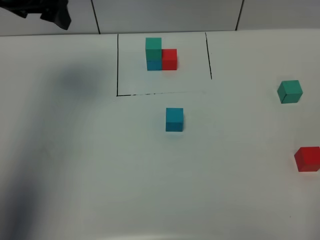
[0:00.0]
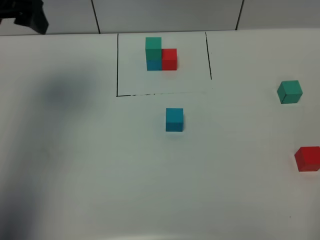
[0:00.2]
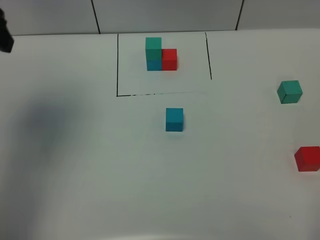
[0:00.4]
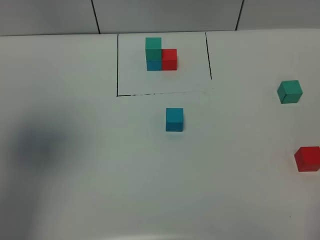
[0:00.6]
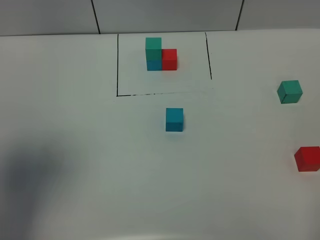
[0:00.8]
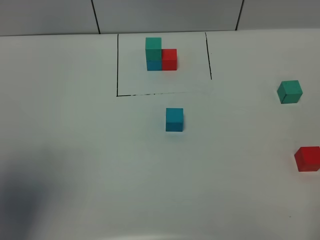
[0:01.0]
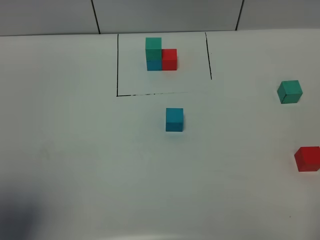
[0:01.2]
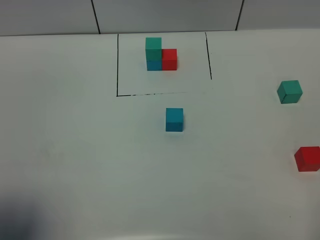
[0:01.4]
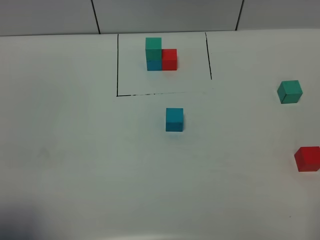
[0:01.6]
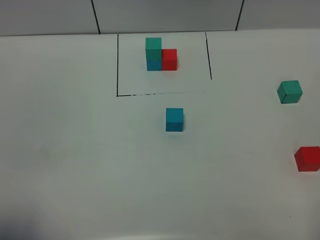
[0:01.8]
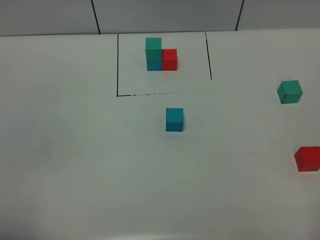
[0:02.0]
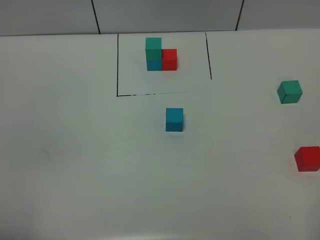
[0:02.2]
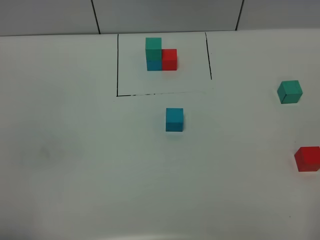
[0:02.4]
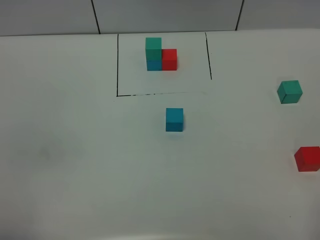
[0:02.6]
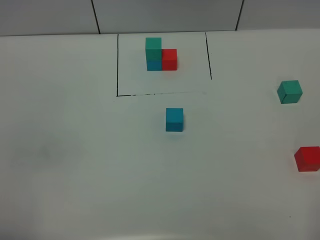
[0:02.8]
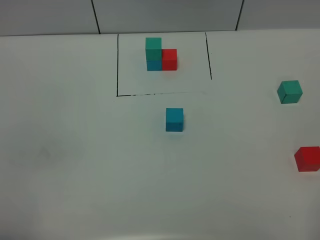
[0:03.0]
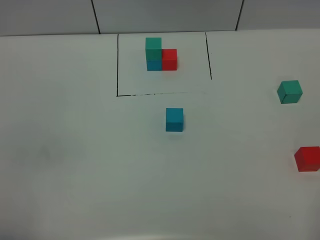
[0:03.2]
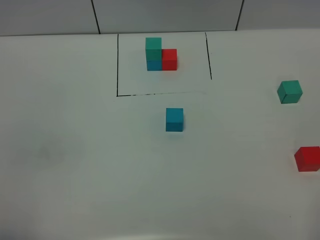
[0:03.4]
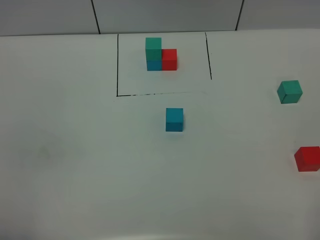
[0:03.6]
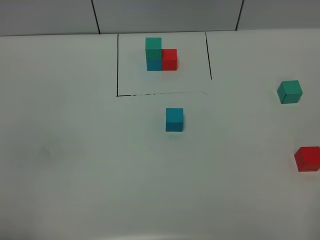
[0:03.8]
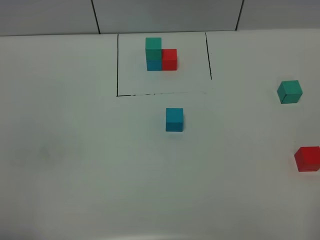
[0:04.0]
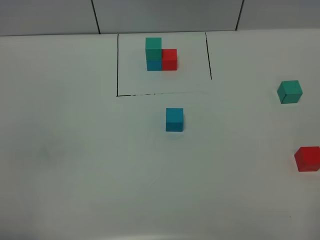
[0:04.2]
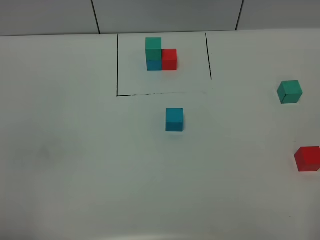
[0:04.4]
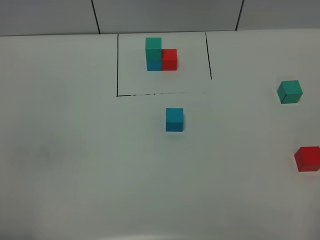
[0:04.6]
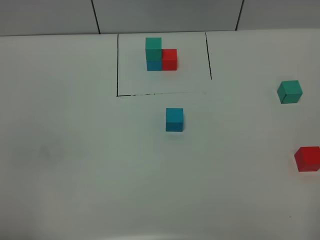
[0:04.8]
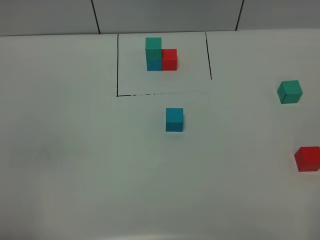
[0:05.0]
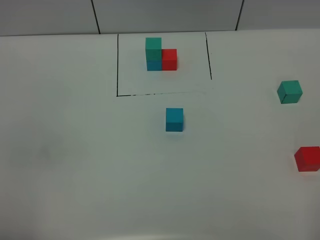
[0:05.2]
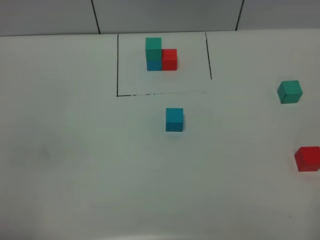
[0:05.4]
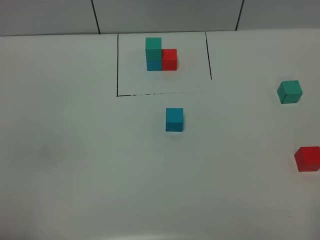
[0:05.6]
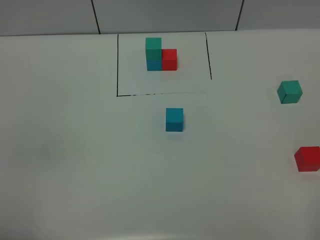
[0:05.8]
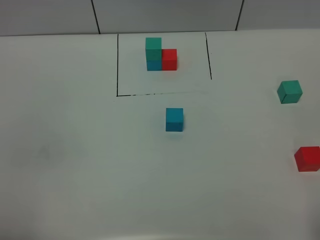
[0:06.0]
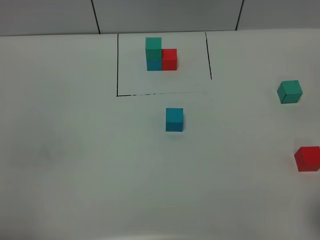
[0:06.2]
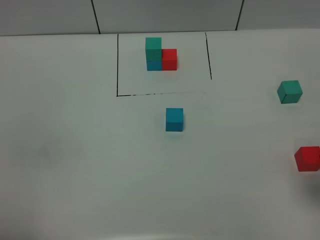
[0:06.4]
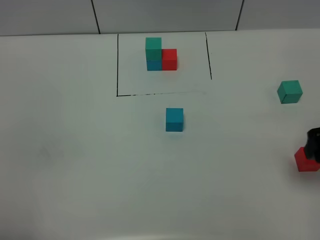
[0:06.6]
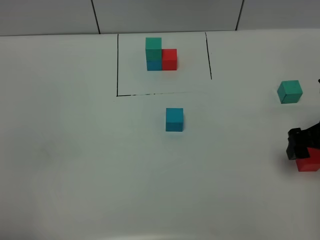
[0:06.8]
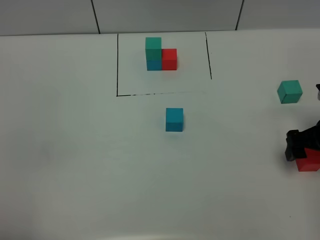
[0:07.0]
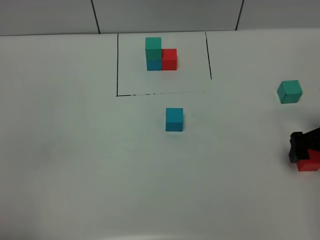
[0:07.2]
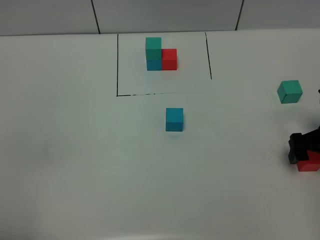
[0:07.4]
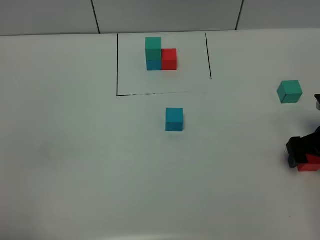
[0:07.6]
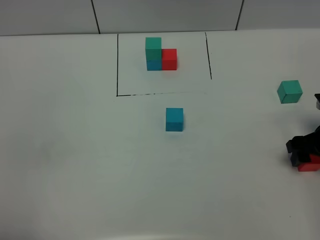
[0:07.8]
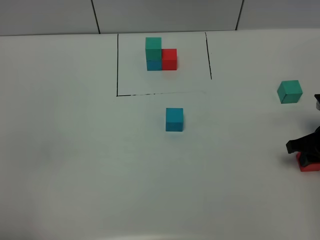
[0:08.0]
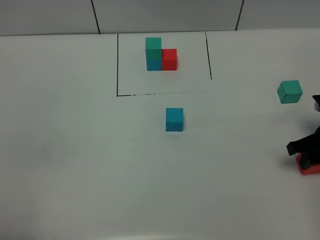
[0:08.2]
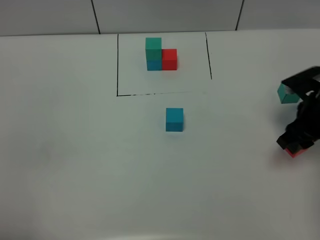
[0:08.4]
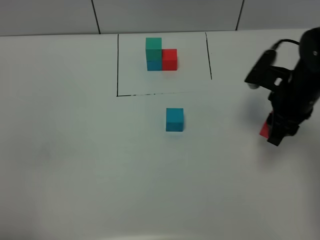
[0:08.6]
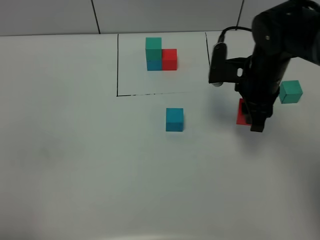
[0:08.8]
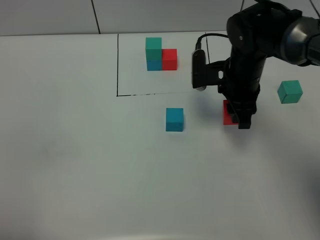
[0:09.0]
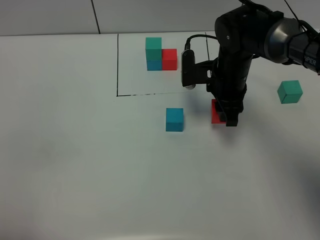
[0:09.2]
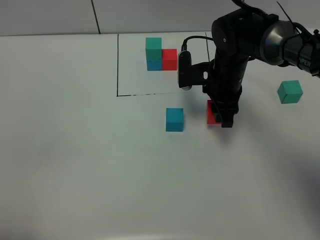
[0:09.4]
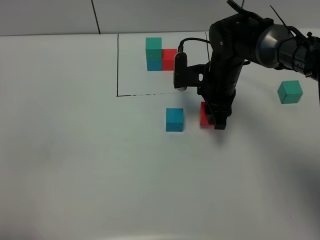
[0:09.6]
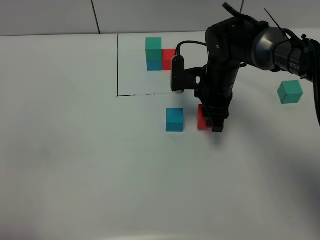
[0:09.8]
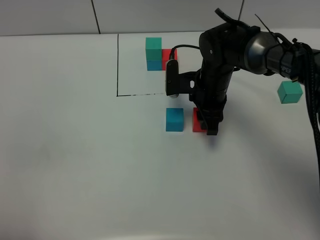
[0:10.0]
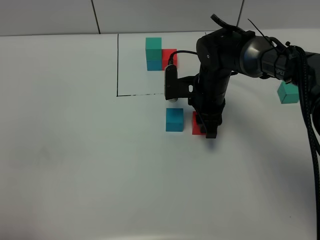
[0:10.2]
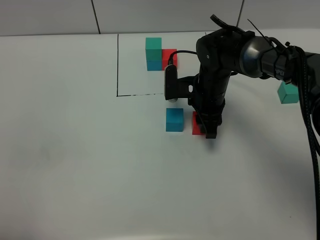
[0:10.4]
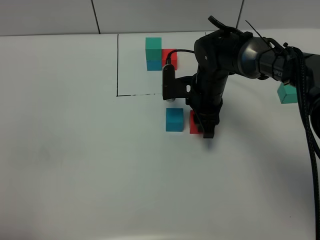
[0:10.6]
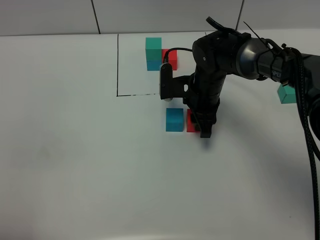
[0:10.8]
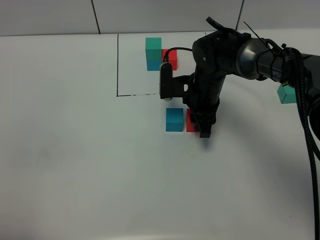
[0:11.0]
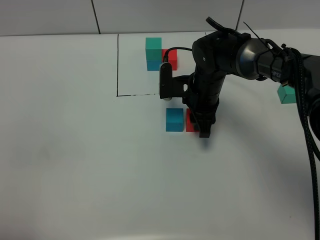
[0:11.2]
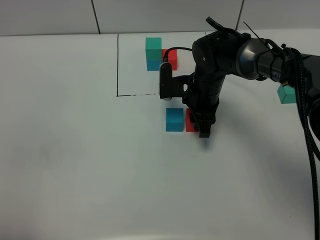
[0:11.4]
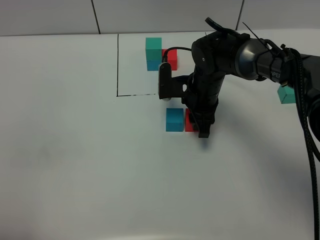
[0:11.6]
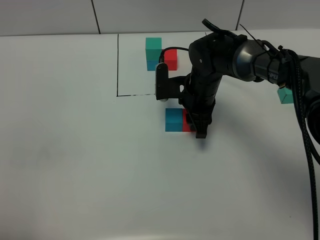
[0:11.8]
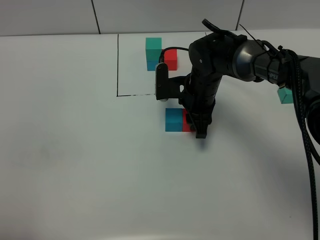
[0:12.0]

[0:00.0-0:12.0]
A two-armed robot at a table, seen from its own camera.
Task of the whole recording: According to the building block template in front, assemble the scattered blocks together.
Step, 0:00.0 to 0:12.0: Put the red build block on the right of the blue build block.
0:00.0 to 0:01.6: The left gripper goes roughly 35 cm backward.
0:01.6 to 0:03.0: The left gripper is displaced downward by some 5 cm.
0:03.0 to 0:04.4: Both grippers stay about where they are.
0:06.0 to 0:07.6: The right gripper is displaced forward and downward by approximately 30 cm.
0:07.6 to 0:09.0: The right gripper is displaced to the left and forward by some 20 cm, and closes.
0:09.0 to 0:10.4: The right gripper moves downward, approximately 5 cm.
0:10.4 to 0:12.0: The grippers make only small movements.

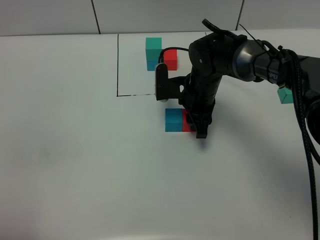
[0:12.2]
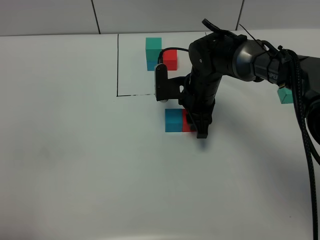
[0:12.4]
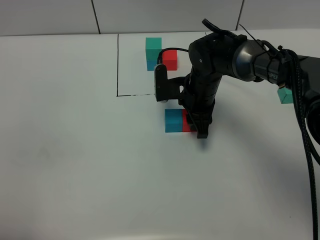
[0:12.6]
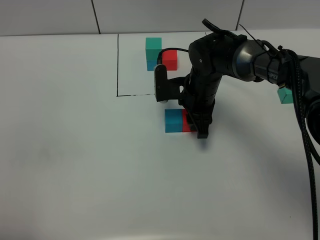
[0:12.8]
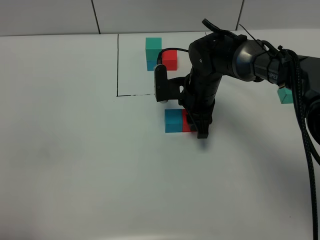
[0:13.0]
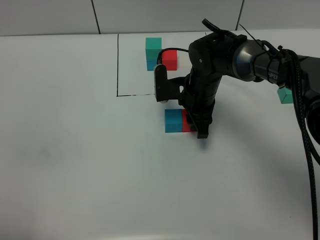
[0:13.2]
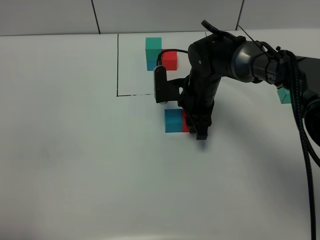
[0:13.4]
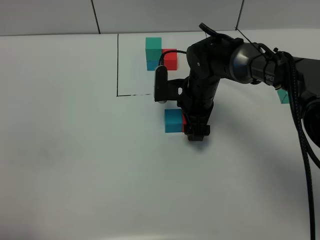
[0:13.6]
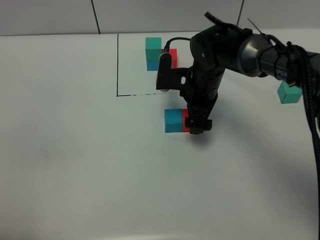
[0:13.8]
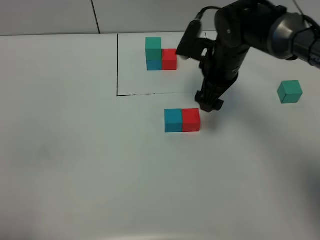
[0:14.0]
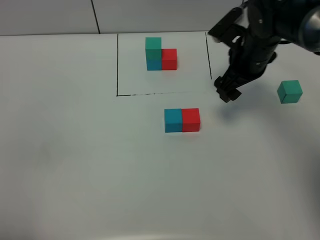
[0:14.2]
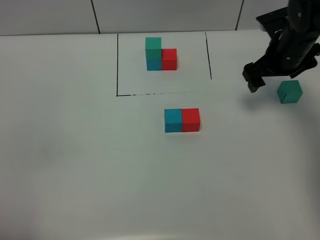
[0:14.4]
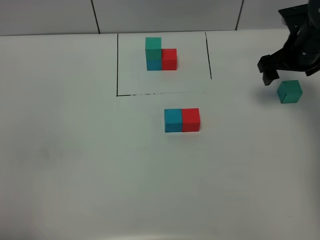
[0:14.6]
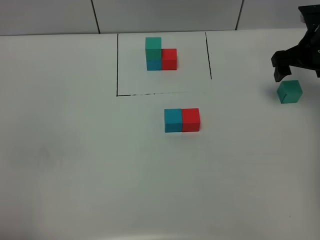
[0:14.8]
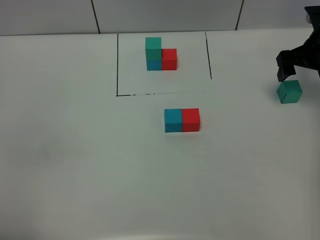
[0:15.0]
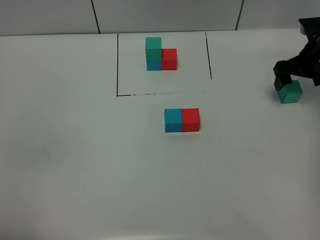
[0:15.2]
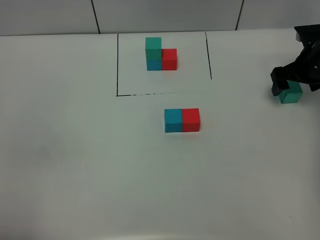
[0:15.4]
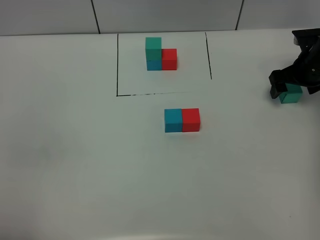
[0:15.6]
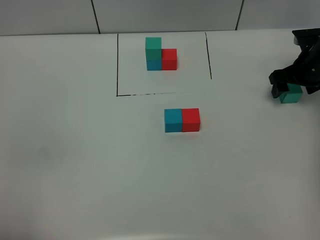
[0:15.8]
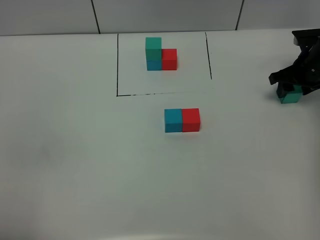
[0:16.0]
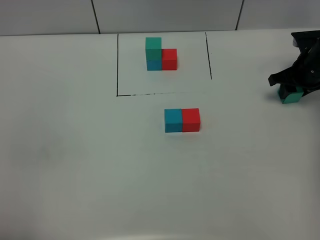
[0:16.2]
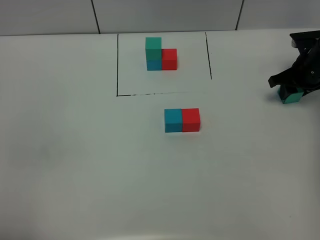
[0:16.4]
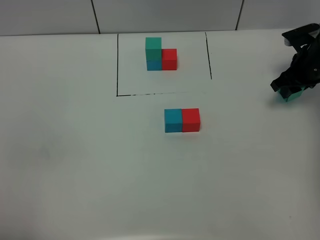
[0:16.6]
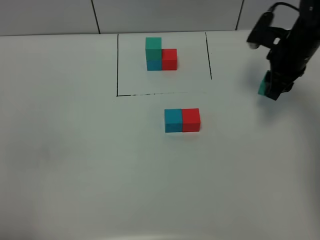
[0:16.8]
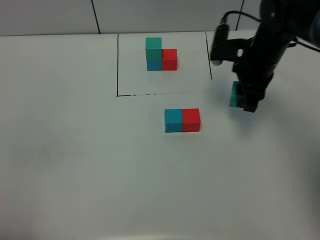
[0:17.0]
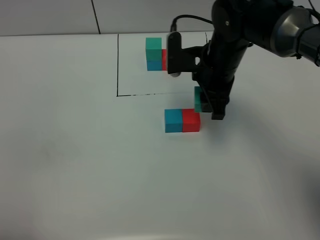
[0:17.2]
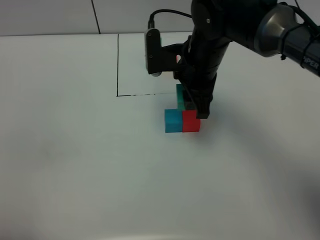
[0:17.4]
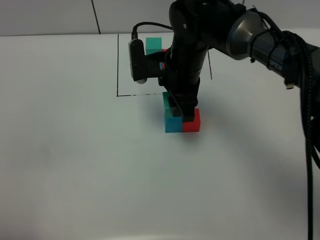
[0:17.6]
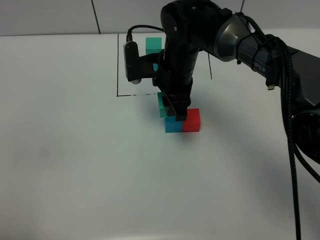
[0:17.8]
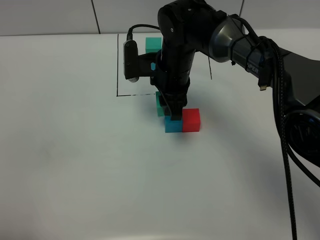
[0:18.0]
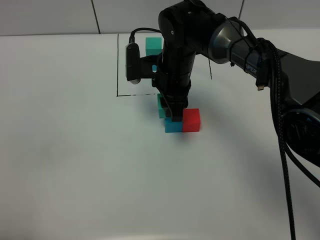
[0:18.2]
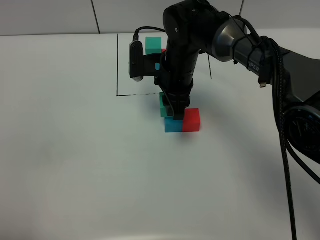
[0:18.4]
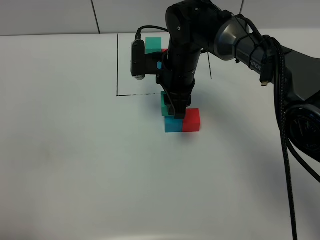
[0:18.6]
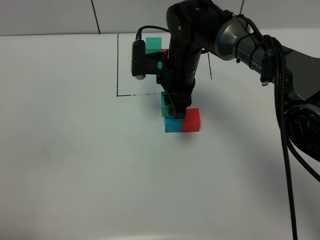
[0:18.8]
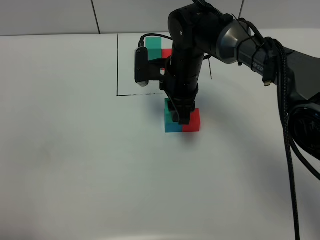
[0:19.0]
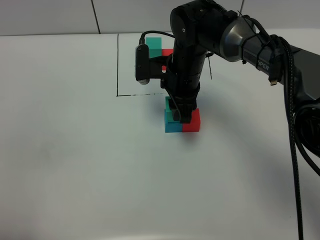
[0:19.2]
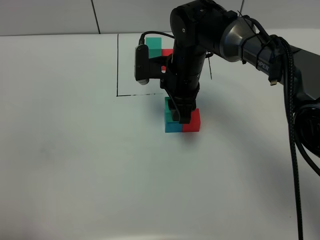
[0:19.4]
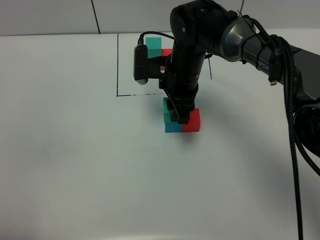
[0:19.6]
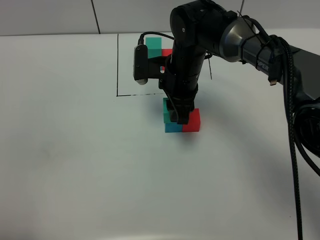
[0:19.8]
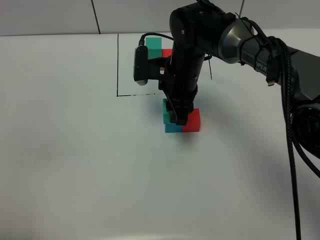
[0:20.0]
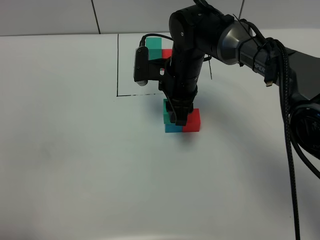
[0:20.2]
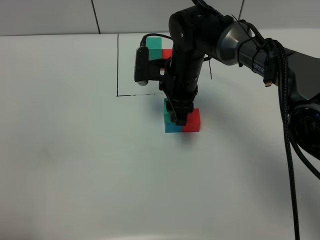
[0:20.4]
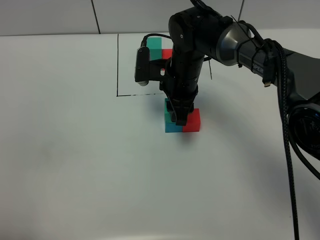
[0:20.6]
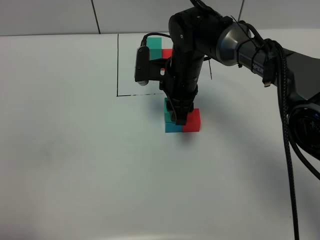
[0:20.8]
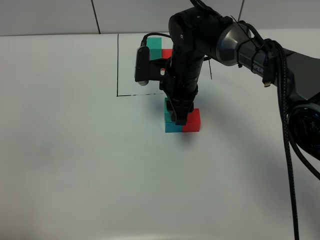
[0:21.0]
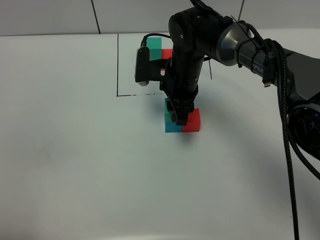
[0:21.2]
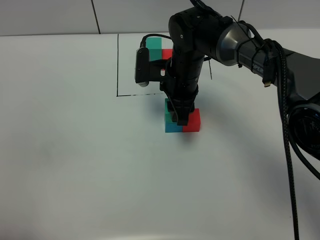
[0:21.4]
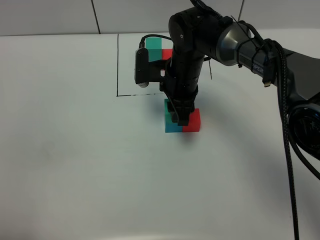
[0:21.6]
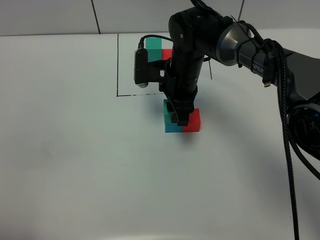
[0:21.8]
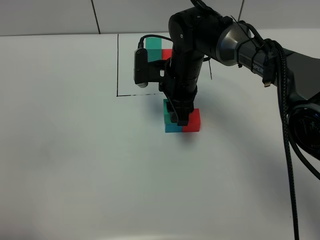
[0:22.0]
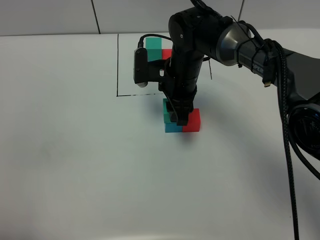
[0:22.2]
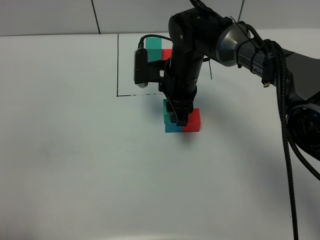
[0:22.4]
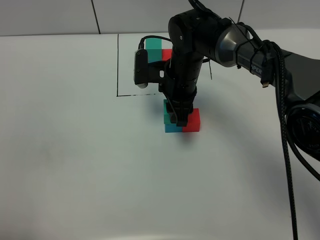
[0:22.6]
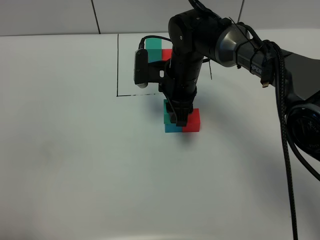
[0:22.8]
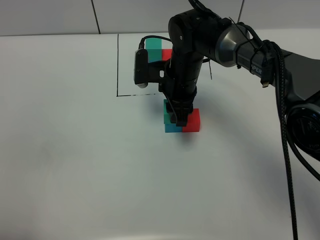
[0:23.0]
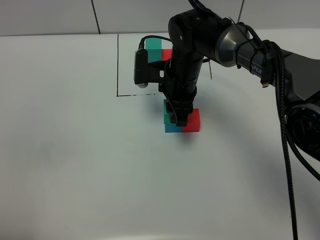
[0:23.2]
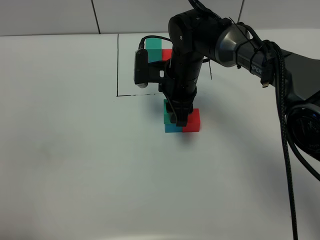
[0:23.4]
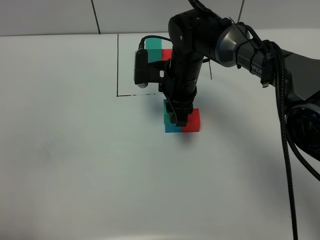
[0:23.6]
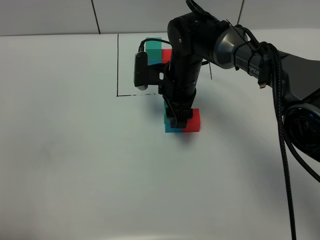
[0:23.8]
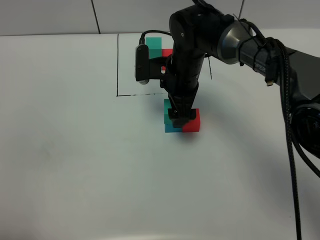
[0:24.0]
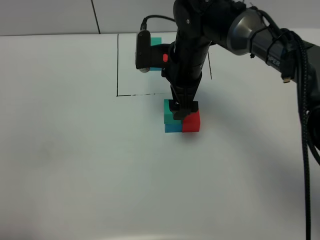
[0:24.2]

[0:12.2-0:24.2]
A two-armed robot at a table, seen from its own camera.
Task of the whole recording: According to the building block template in front, assemble the scattered blocks together.
Step, 0:12.2 to 0:23.8: Put the green build block on the blue build block.
0:12.2 to 0:13.8: The right gripper opens.
0:13.8 to 0:15.2: The right gripper heads to the right, covering some 25 cm.
0:15.2 to 0:16.6: The right gripper closes.
0:16.6 to 0:18.2: The right gripper heads to the left, covering some 30 cm.
0:18.2 to 0:19.8: The grippers move only a little.
0:19.8 to 0:21.2: Neither gripper changes place.
0:21.2 to 0:22.6: Both grippers stay about where they are.
0:22.6 to 0:24.2: The right gripper heads upward, covering about 5 cm, and opens up.
